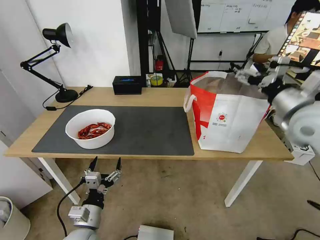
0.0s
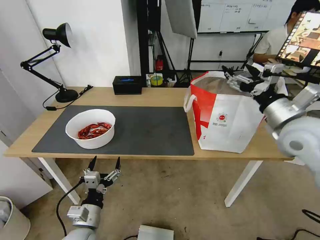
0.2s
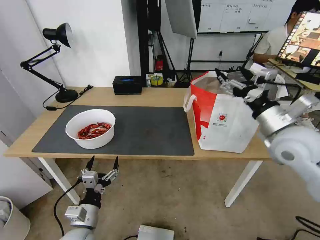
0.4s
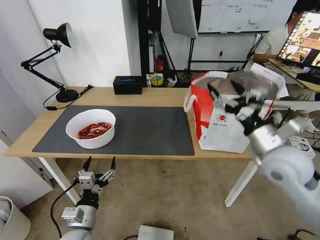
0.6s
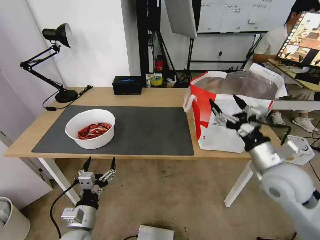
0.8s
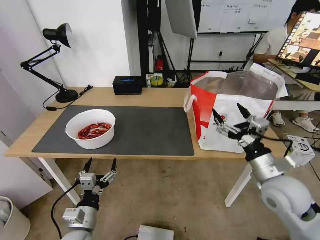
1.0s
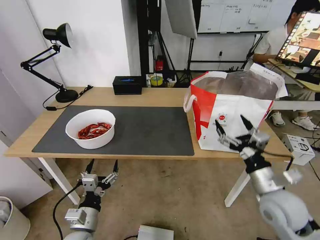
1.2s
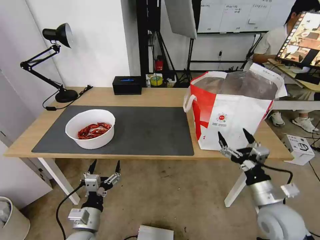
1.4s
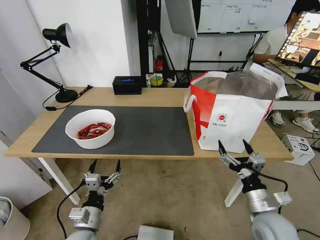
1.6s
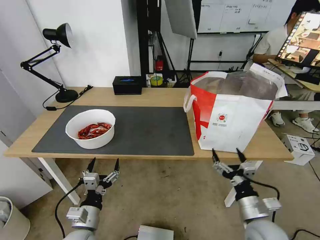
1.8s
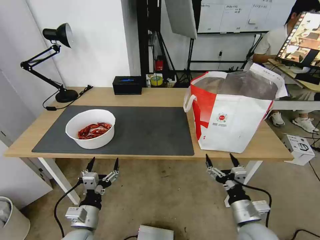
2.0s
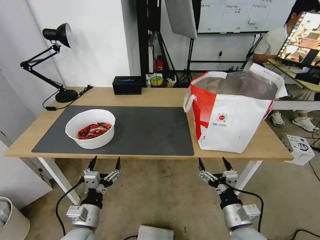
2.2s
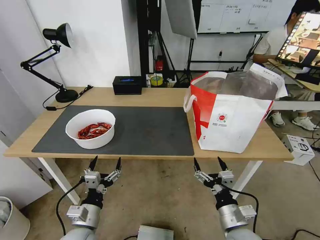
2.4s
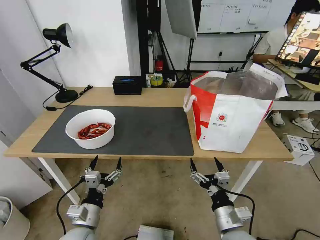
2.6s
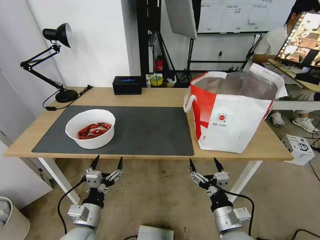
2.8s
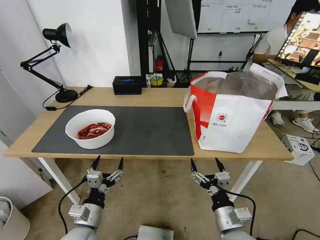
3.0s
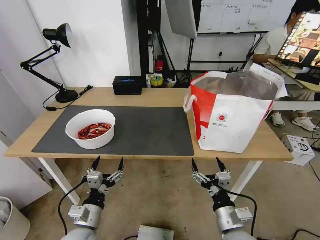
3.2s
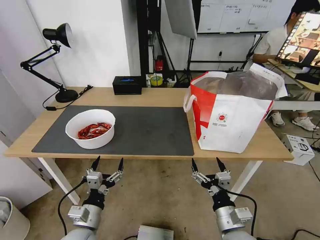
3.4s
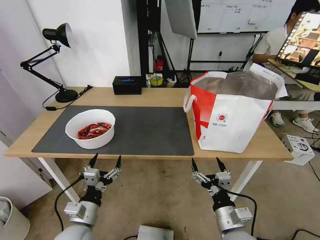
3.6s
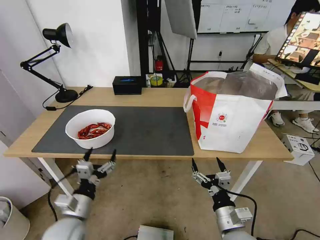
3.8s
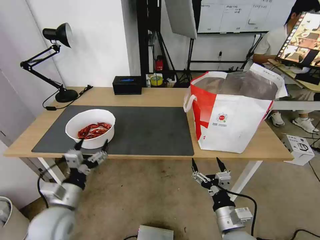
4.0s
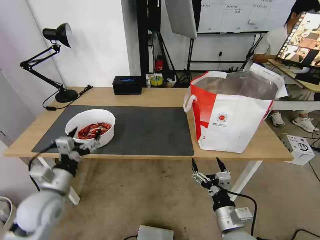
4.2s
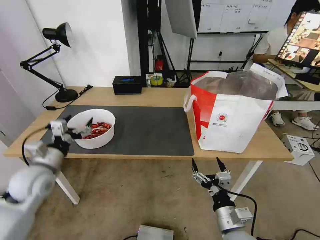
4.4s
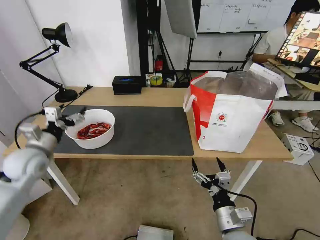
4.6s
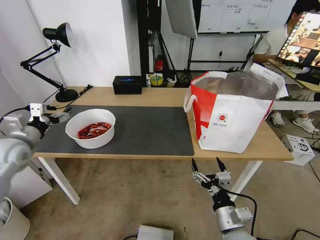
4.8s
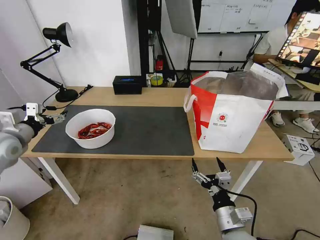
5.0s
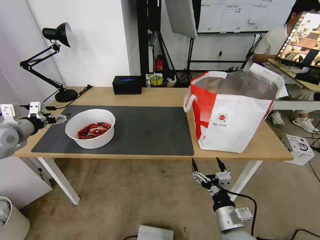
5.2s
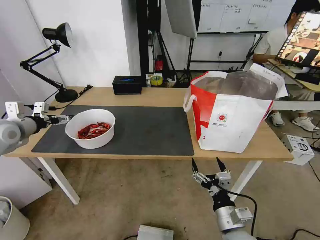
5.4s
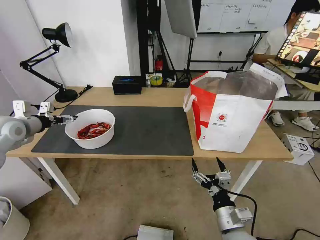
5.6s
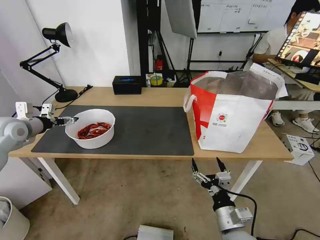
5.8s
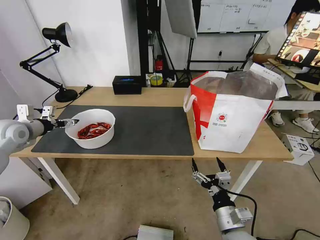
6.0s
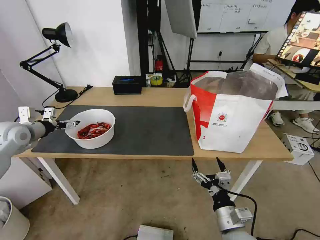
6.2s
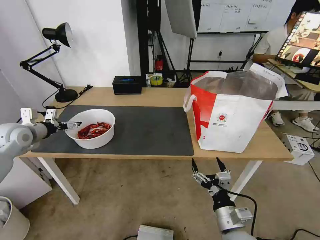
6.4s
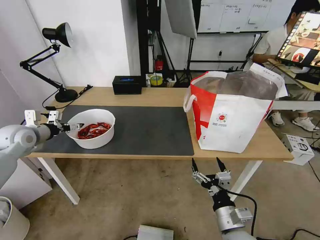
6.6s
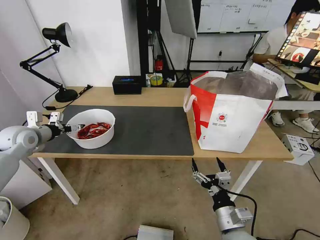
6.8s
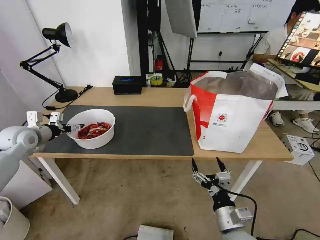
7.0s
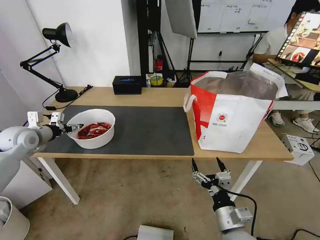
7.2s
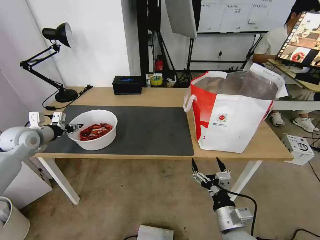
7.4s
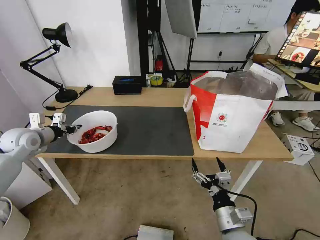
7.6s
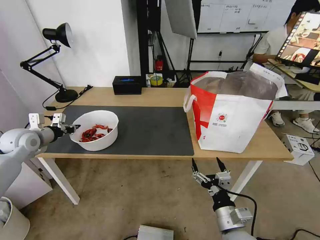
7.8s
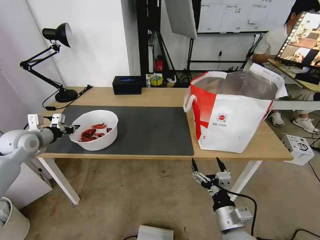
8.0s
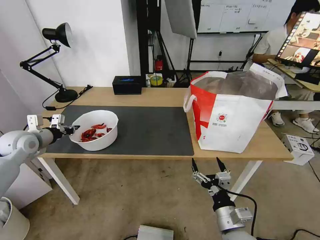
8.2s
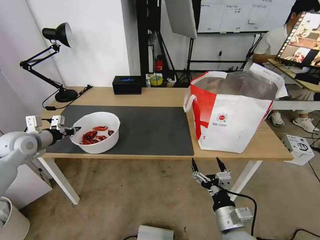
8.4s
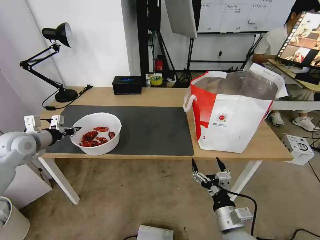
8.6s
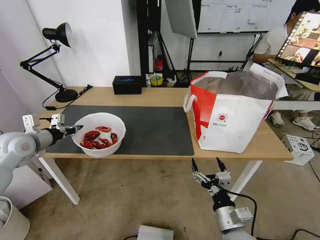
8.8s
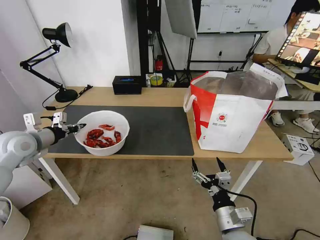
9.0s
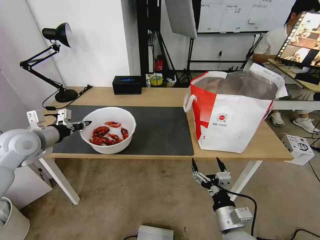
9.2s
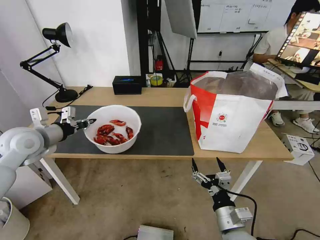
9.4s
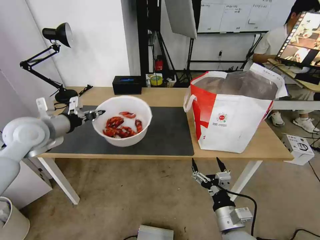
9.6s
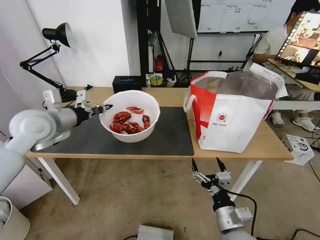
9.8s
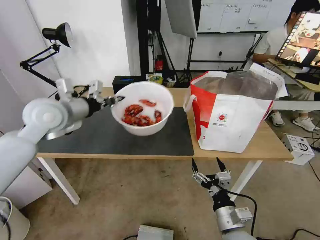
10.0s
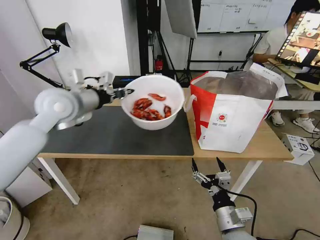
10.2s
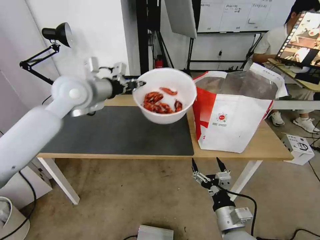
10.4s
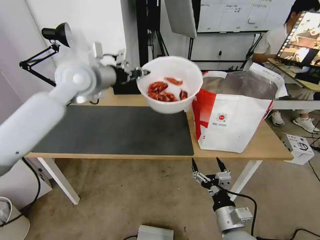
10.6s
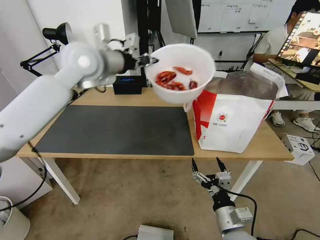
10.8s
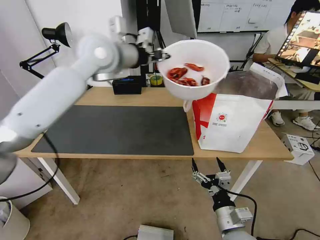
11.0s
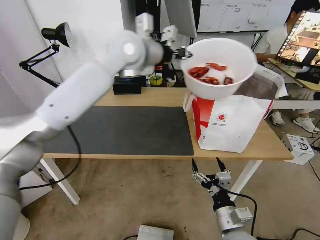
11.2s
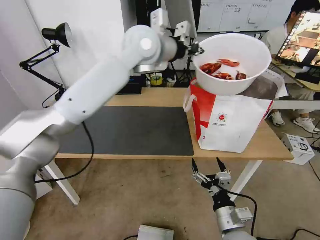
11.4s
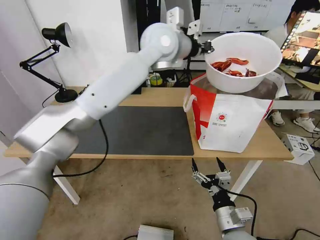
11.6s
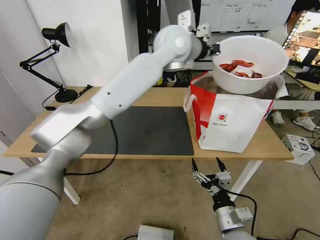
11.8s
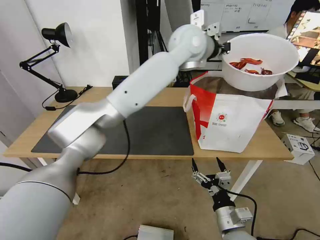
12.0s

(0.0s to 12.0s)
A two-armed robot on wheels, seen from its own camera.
Task of the whole recording: Pick up the trash from the table and place it into the takeout bag.
0.0s - 1.6s: The right gripper heads downward and backward, covering approximately 30 cm.
1.6s - 3.0s: The right gripper is displaced to the left by approximately 10 cm.
3.0s - 4.4s: The left gripper goes some 20 cm to the left, forward and upward.
4.4s - 6.0s: The left gripper shifts approximately 20 cm forward, to the left and upward.
6.0s - 7.6s: The left gripper closes.
7.6s - 9.0s: The left gripper moves approximately 5 cm.
9.0s - 10.4s: The left gripper is displaced to the right and upward by about 25 cm.
10.4s - 12.0s: The left gripper travels to the right by about 30 cm.

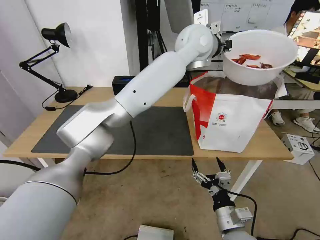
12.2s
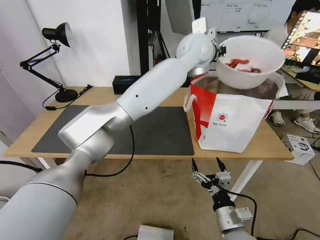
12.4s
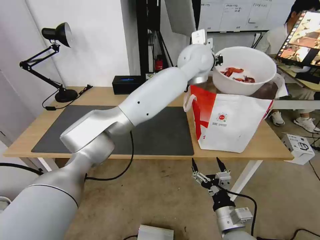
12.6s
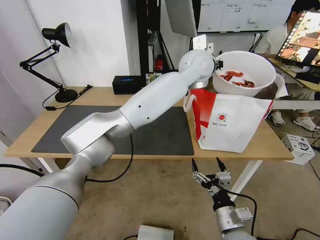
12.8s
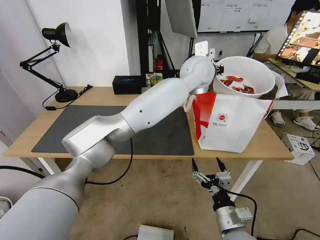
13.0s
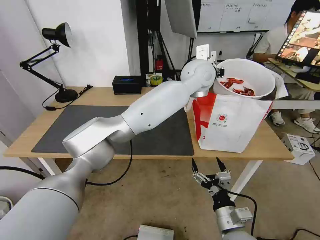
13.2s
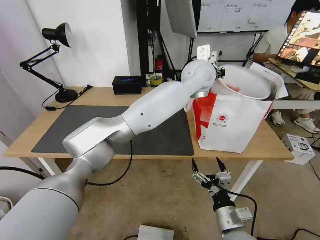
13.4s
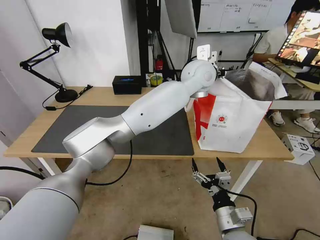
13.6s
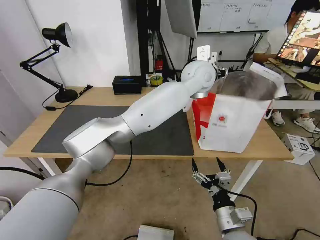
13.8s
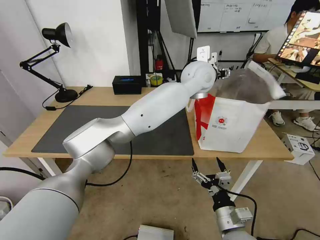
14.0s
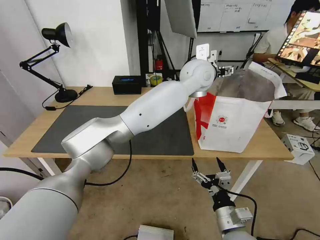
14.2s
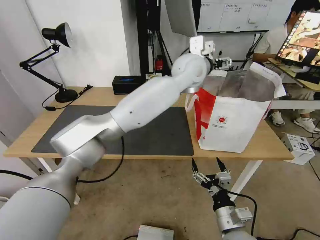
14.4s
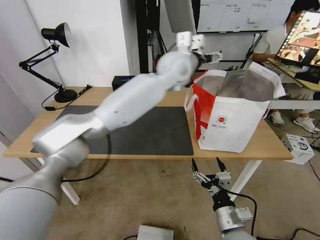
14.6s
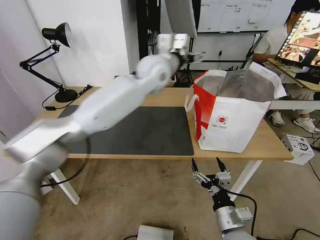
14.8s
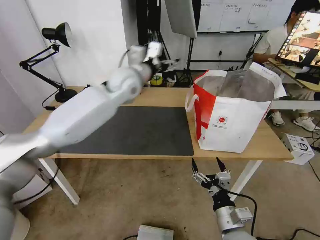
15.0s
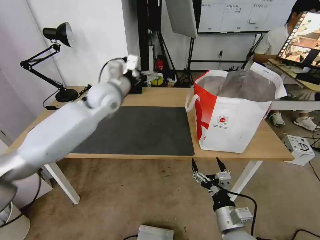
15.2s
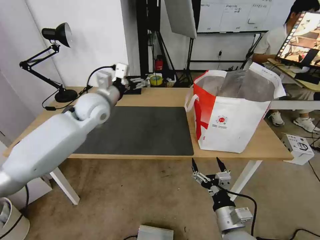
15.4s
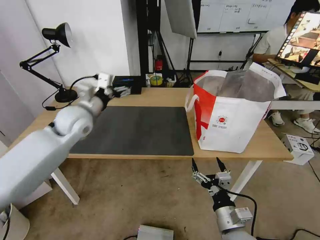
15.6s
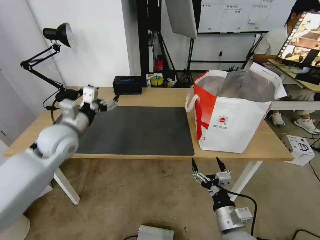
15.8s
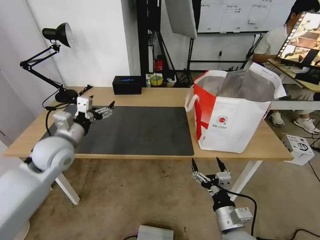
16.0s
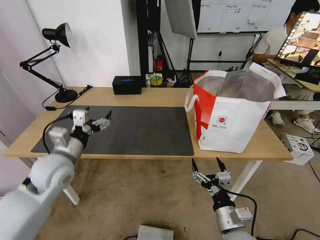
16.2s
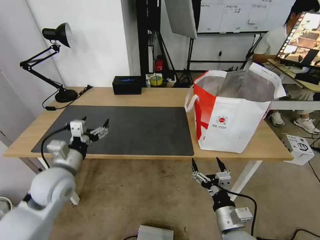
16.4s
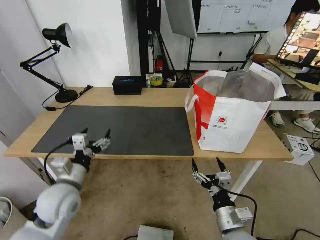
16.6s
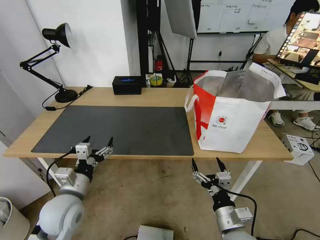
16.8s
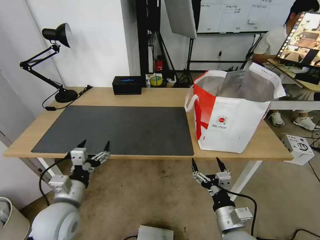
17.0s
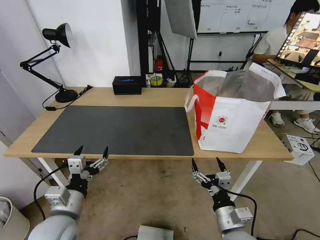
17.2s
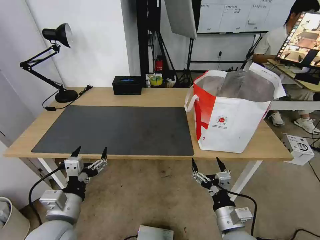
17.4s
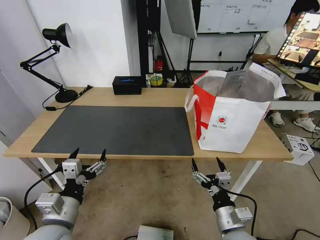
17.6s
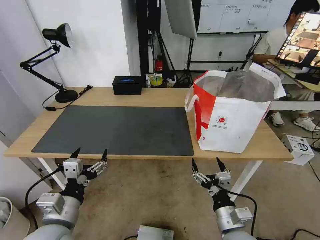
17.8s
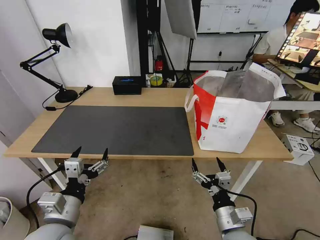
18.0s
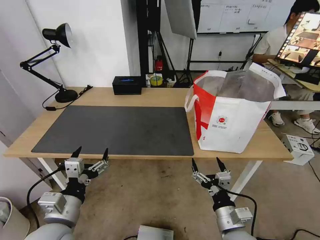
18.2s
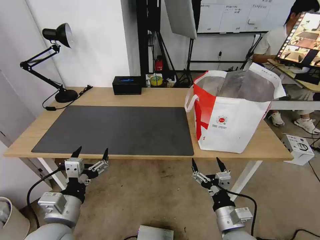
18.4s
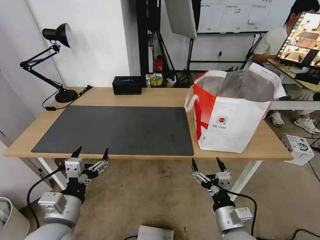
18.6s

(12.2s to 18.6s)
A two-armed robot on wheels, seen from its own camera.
Task of the whole recording: Pick up the trash from the table and place it into the takeout bag.
12.2s - 13.8s: The left gripper is displaced downward by about 10 cm, and opens.
13.8s - 15.4s: The left gripper travels to the left by about 30 cm, and opens.
15.4s - 17.0s: The left gripper travels backward and downward by about 30 cm.
17.0s - 18.6s: The left gripper heads backward, covering about 5 cm.

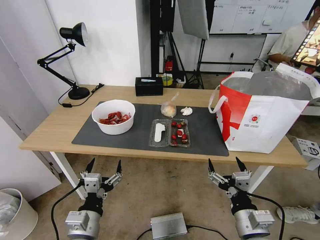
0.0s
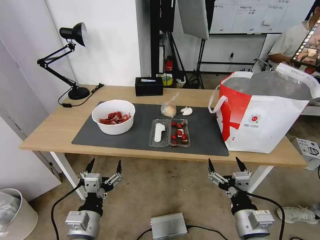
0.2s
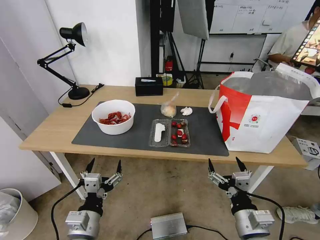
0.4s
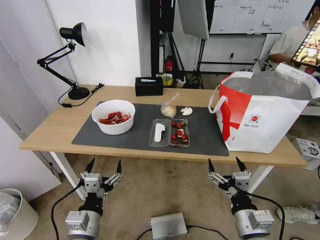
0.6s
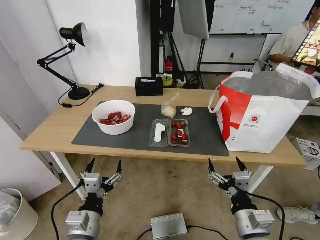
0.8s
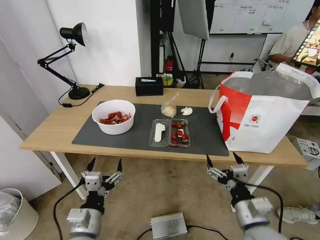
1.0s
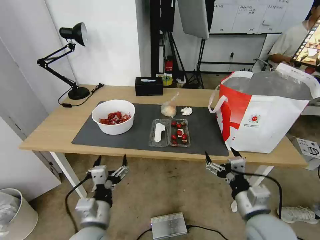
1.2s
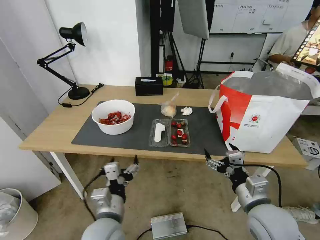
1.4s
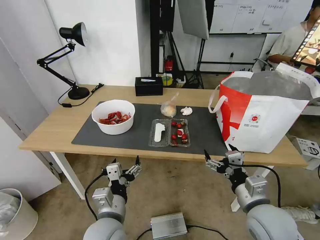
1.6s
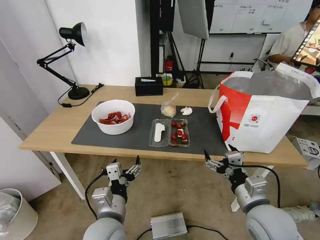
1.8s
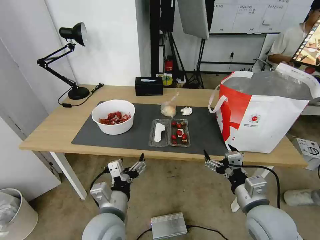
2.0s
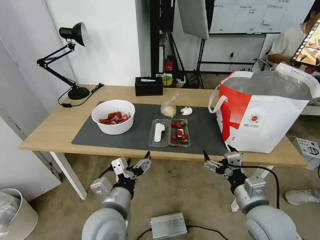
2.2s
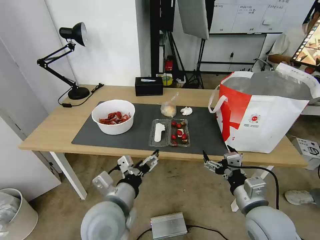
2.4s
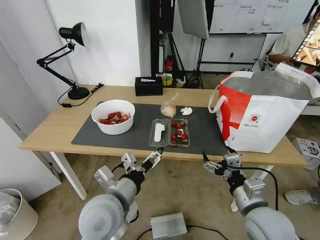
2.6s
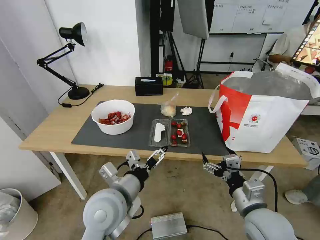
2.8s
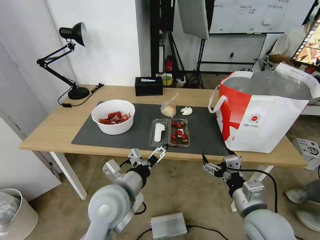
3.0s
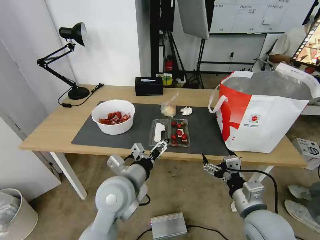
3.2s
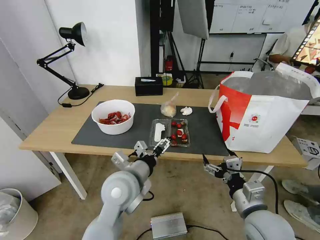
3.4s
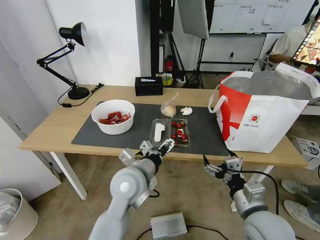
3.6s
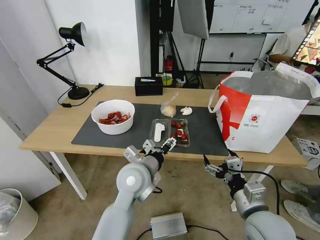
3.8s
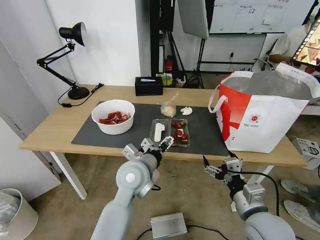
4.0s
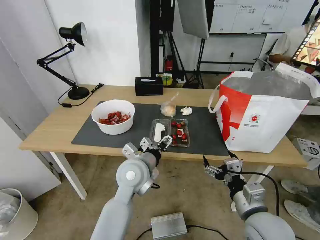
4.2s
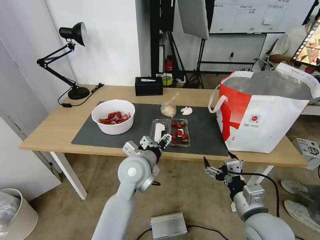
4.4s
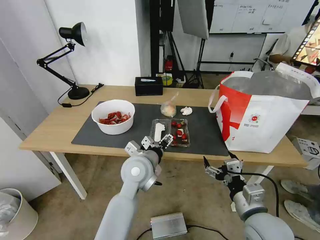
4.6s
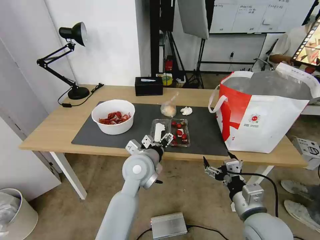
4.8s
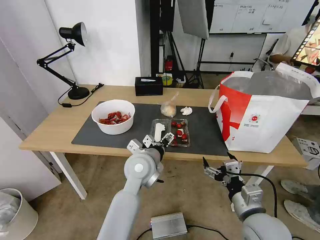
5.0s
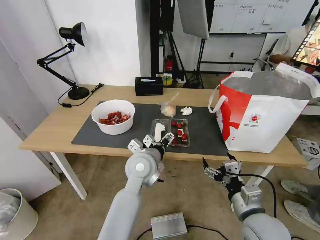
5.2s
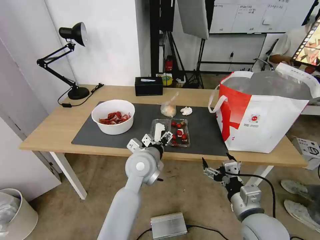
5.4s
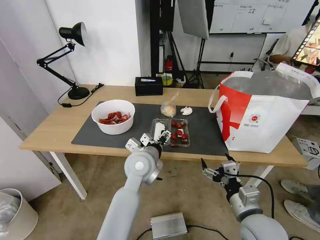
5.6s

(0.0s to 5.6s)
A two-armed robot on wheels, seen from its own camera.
Task of the whole recording: Pick up the trash from the table and place it into the takeout bag.
1.4s - 2.8s: The left gripper heads upward, covering roughly 5 cm.
2.8s - 4.2s: The left gripper shifts about 10 cm forward and to the right.
4.2s - 5.6s: The grippers stay close to where they were, moving slightly.
